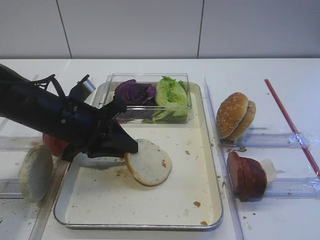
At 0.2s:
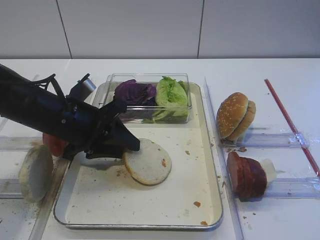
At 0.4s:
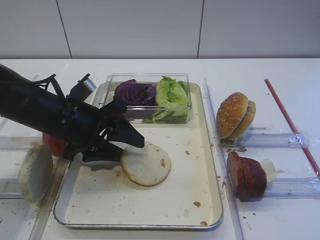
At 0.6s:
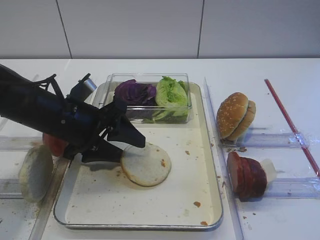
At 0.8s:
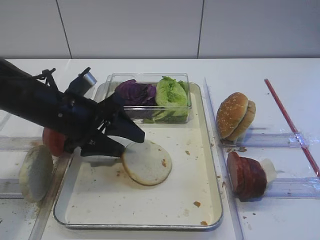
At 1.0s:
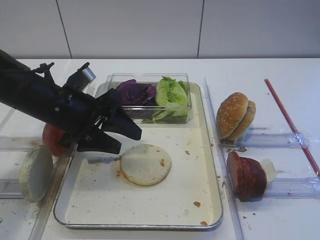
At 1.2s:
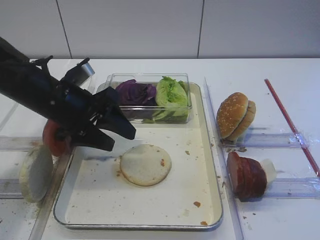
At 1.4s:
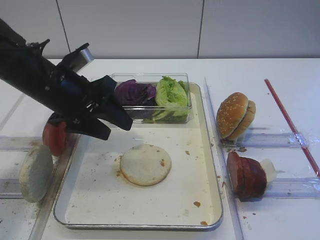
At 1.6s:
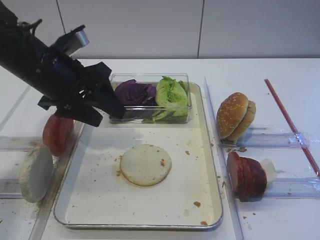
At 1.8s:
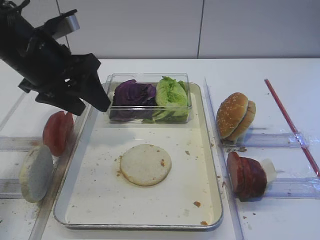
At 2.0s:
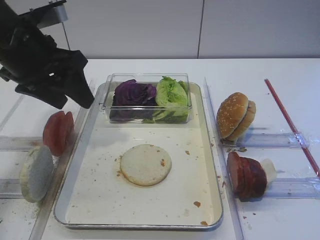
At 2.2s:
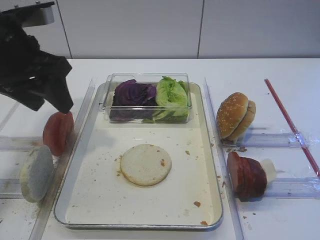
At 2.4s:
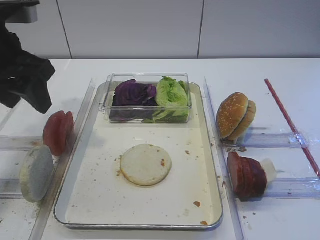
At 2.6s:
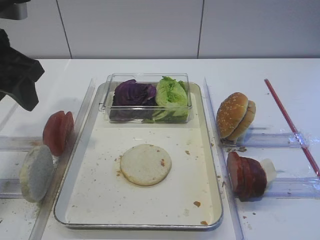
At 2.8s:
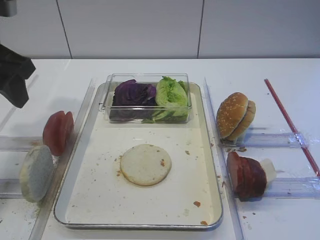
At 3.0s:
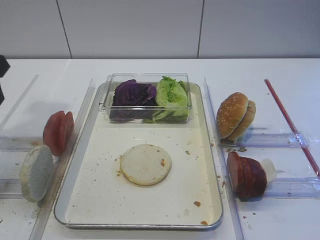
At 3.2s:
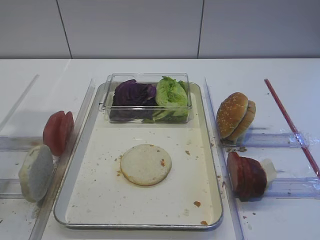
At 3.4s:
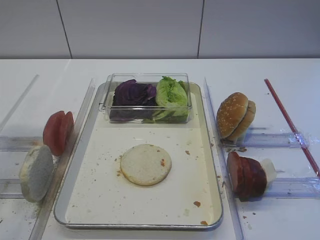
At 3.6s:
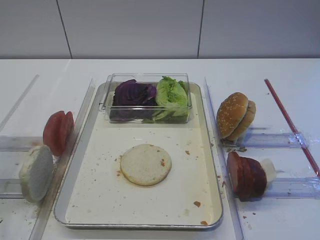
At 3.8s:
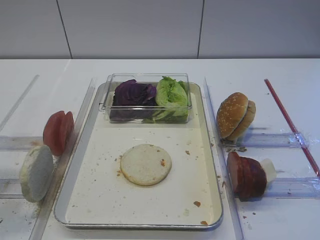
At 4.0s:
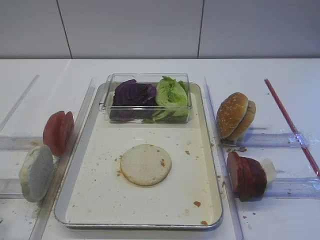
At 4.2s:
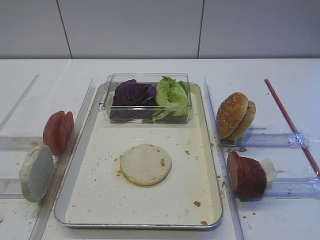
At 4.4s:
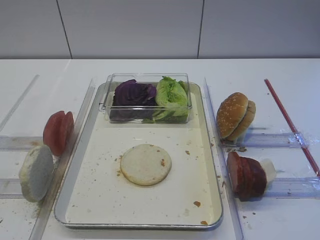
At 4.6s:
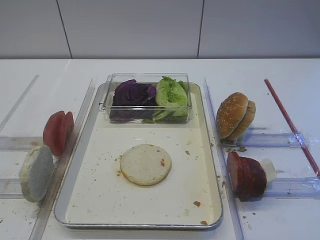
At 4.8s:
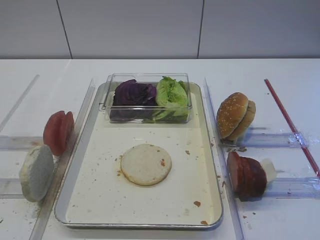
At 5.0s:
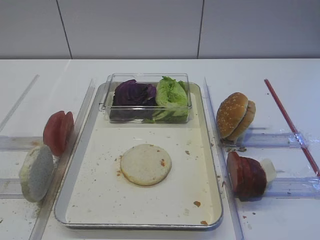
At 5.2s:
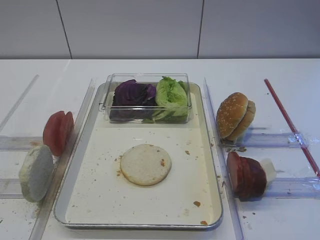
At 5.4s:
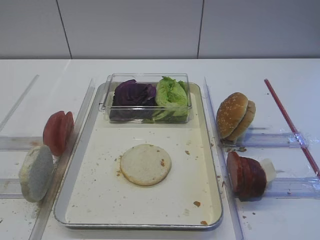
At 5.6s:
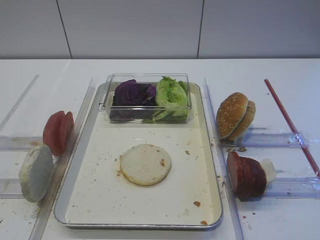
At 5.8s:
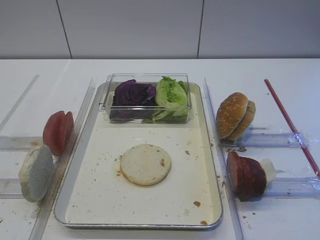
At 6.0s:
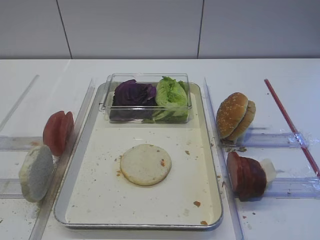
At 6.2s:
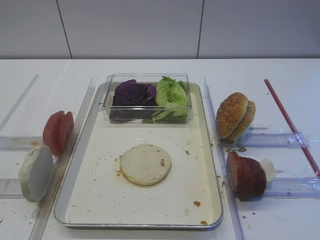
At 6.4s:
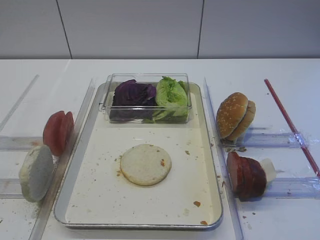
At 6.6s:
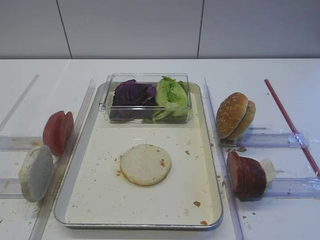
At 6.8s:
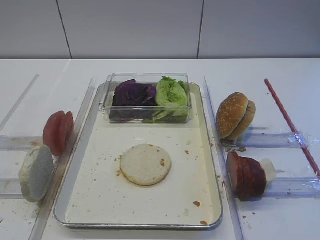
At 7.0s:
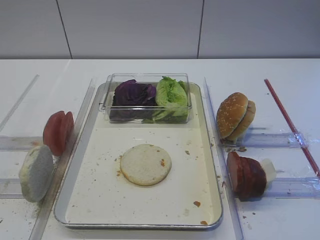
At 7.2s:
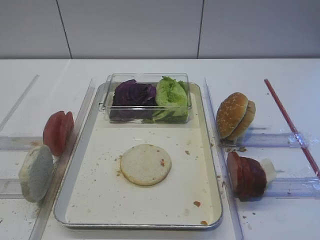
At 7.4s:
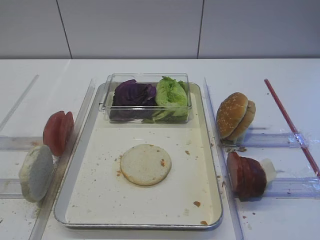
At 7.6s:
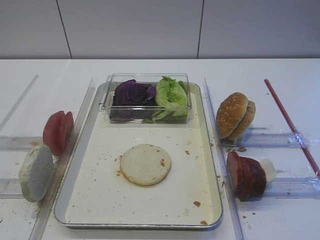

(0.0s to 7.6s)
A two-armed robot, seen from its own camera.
0.0s - 1.6s: The left gripper travels upward by some 10 cm, and opens its fingers.
1.6s - 3.0s: The left gripper moves to the left and upward, some 15 cm.
3.0s - 4.6s: The left gripper is displaced backward by roughly 25 cm.
4.6s - 7.6s: Neither gripper changes place.

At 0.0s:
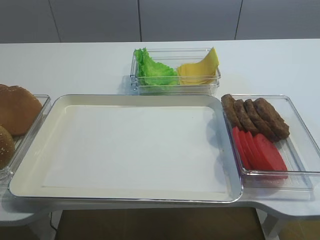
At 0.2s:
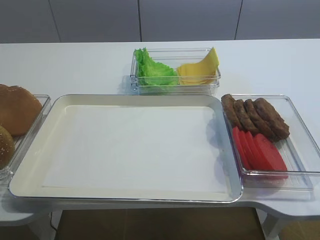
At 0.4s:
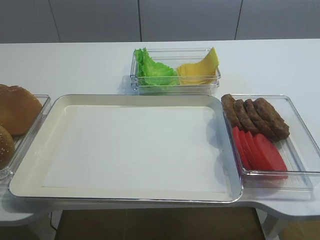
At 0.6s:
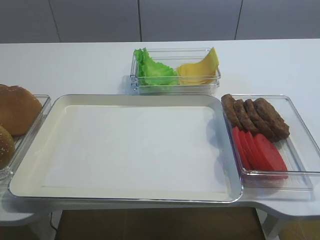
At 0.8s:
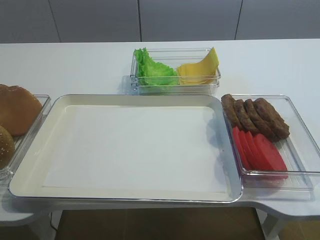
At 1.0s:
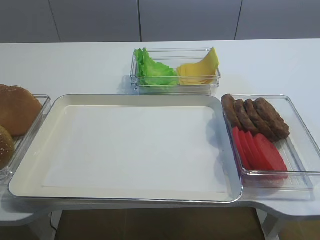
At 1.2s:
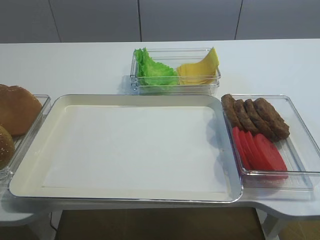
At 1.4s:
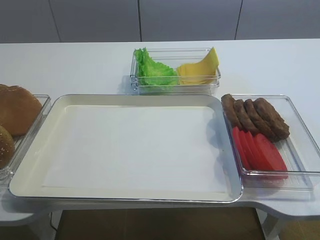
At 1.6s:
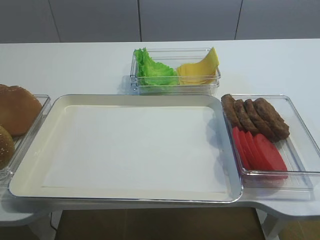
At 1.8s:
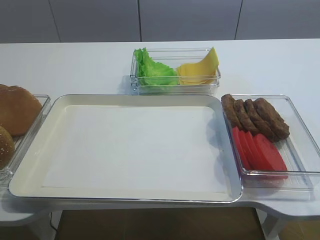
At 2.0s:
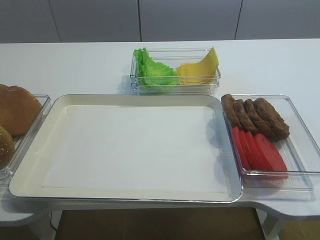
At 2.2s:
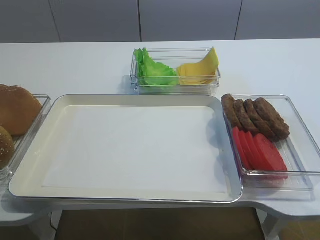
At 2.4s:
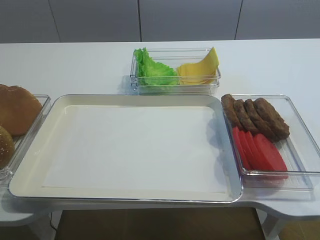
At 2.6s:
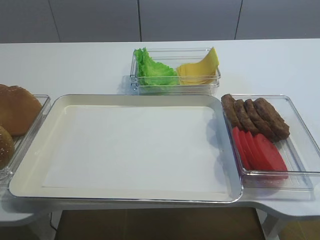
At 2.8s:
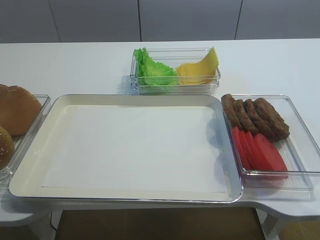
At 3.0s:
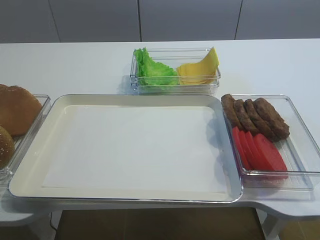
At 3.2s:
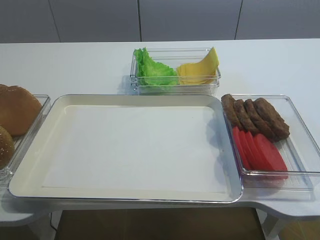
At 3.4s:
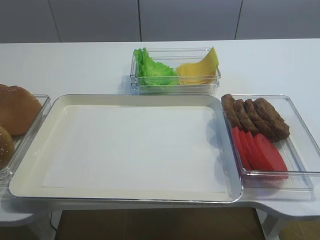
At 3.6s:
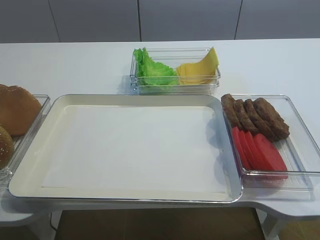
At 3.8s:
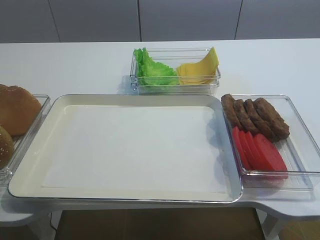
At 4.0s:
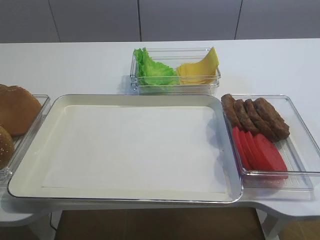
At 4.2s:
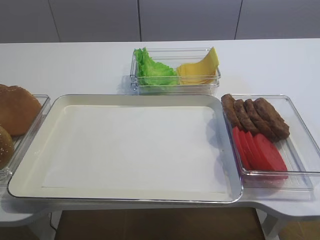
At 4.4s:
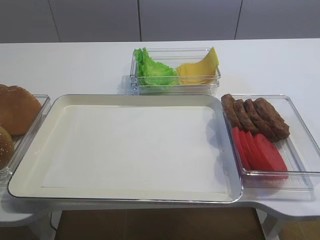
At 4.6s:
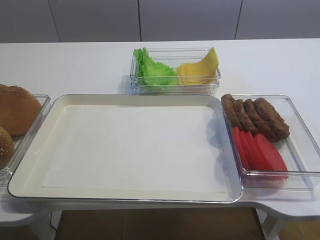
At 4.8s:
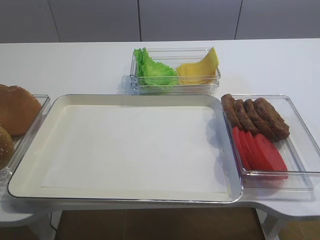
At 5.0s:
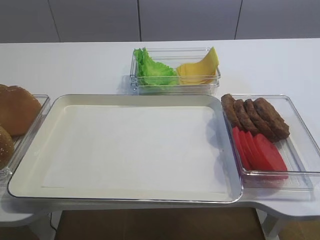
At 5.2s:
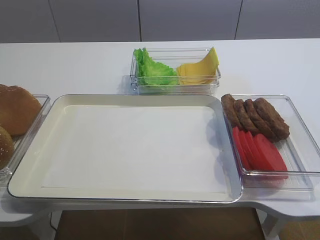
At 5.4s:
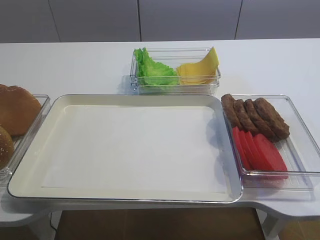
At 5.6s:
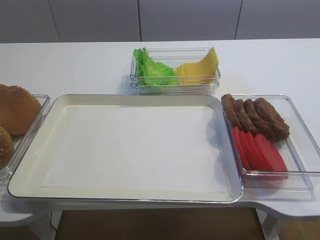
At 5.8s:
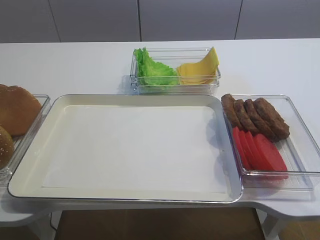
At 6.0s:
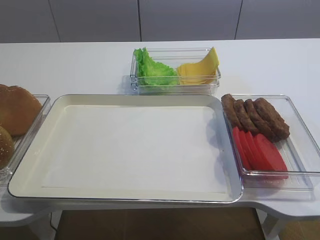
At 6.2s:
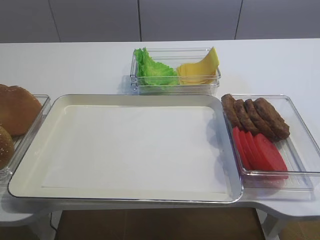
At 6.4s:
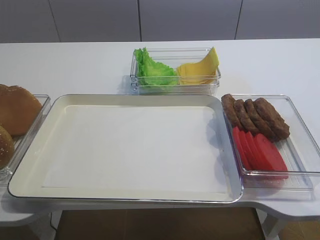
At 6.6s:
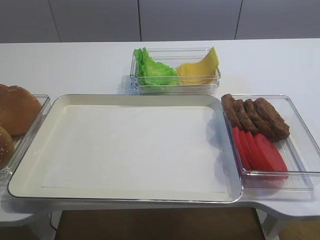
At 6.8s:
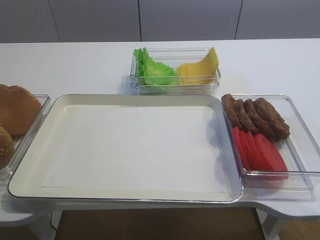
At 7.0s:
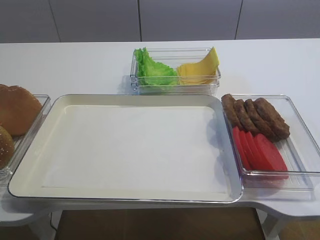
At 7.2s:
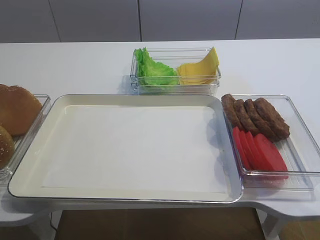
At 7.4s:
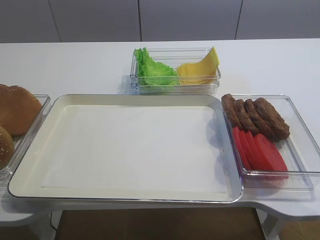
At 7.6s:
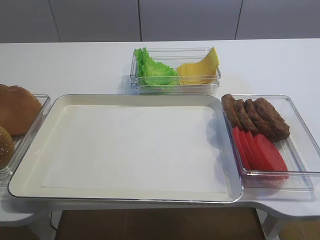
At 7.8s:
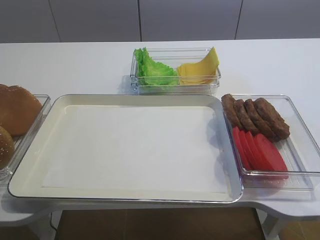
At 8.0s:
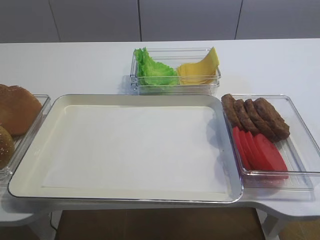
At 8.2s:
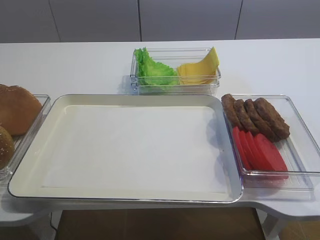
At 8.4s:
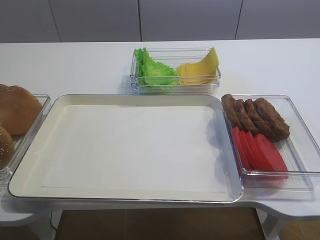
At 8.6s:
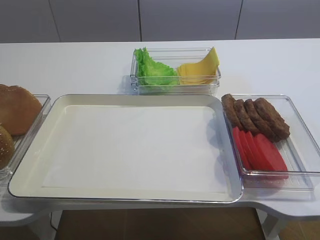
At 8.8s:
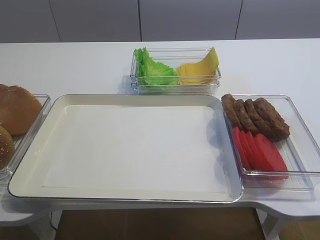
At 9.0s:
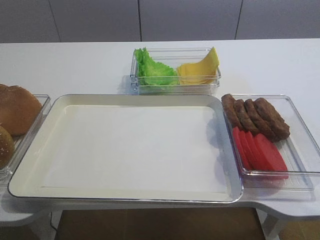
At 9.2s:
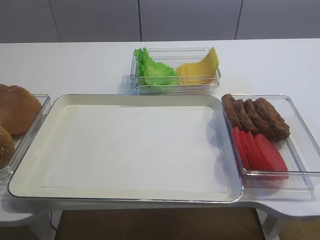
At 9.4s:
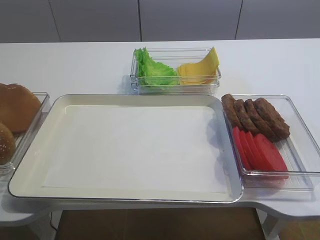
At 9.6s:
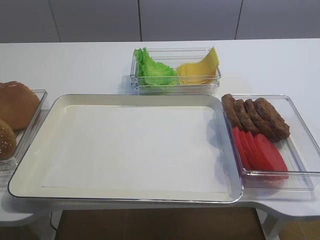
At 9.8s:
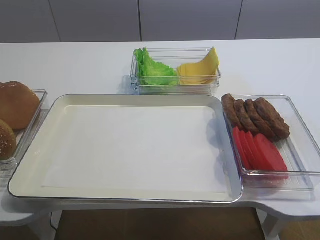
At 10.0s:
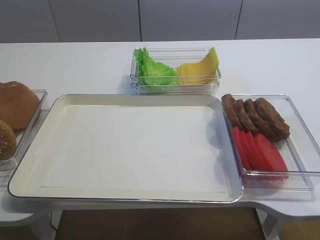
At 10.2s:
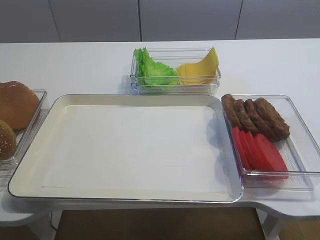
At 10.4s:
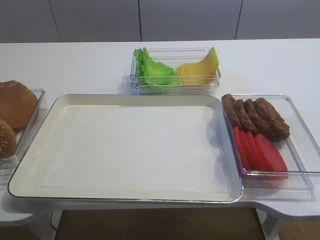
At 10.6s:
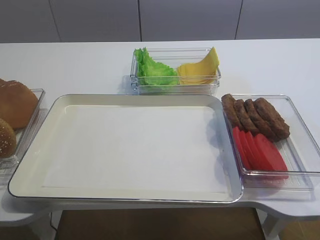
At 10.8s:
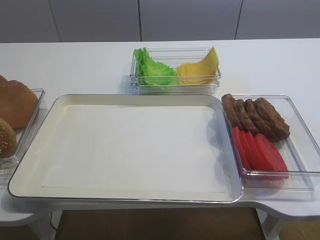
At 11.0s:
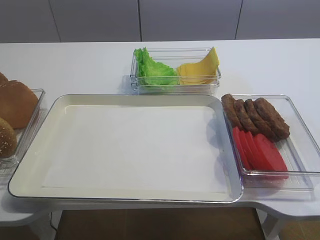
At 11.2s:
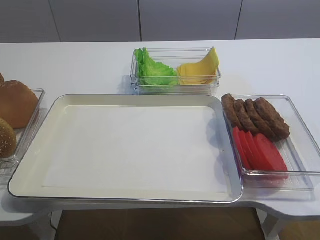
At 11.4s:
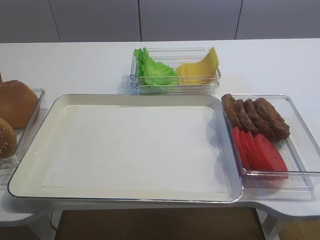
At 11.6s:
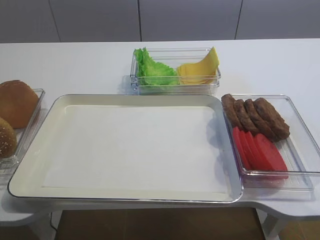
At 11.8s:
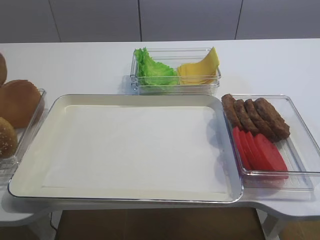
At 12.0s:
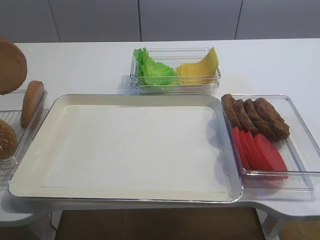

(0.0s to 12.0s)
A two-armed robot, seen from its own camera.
9.0s - 10.4s: The left gripper closes up.
10.4s - 12.0s: The left gripper is displaced upward and to the right by approximately 10 cm.

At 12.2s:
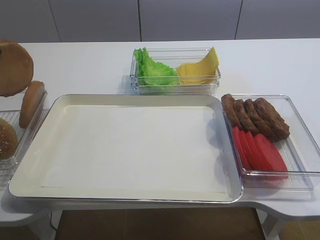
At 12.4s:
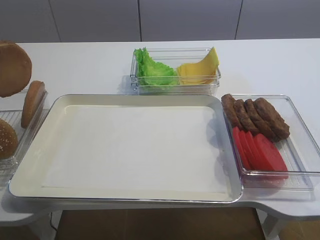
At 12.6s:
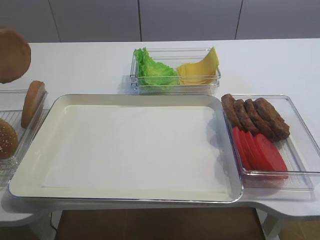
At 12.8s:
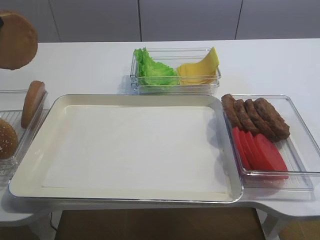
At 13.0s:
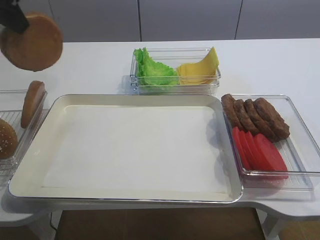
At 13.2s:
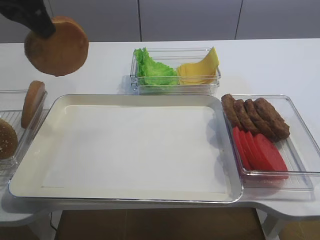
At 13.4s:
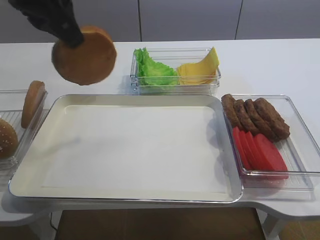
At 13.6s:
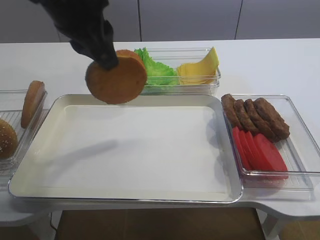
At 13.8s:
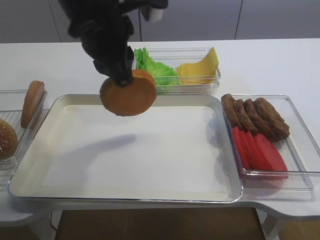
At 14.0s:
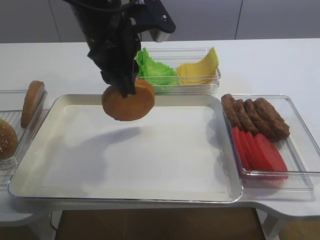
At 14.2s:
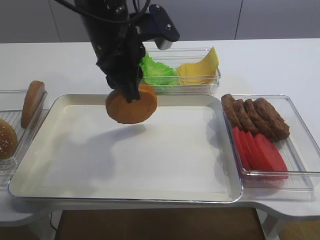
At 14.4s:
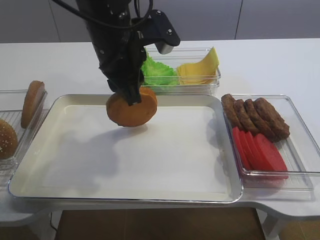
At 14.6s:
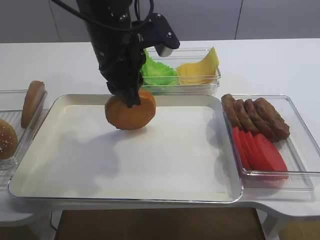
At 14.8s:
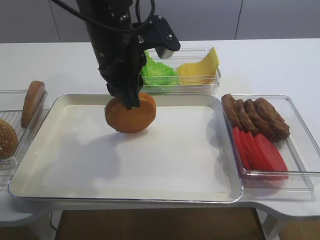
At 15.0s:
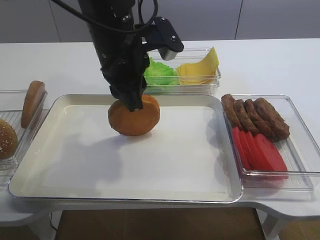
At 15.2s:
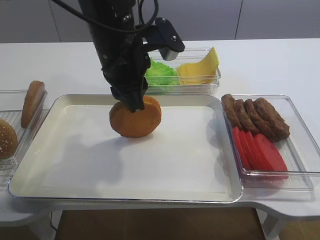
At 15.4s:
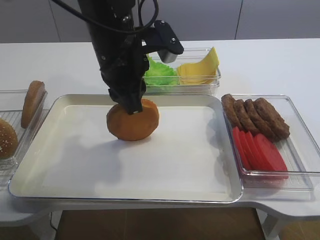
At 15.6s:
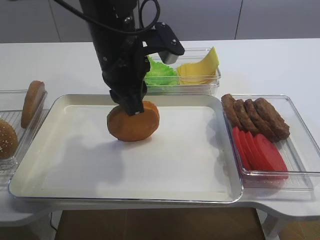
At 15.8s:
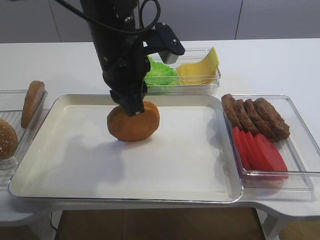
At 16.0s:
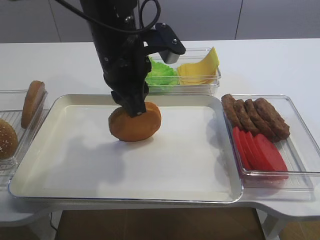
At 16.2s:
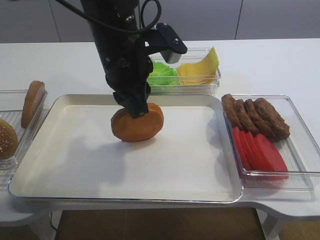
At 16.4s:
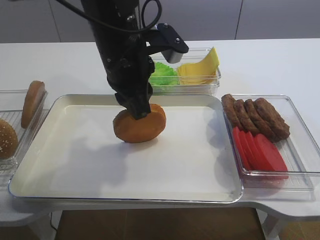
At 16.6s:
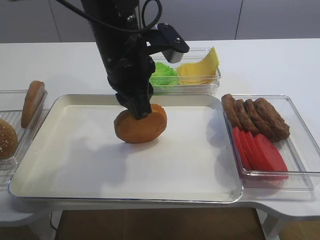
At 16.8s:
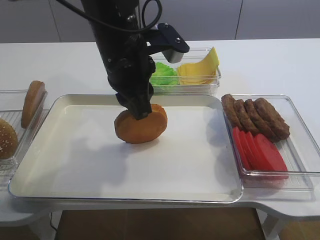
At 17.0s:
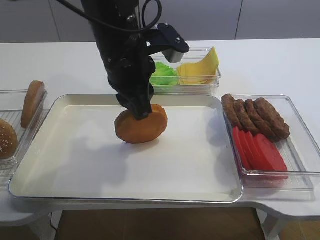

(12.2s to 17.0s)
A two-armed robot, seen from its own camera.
12.2s - 13.8s: The left gripper travels to the right by about 20 cm.
13.8s - 15.4s: The left gripper moves downward, some 5 cm.
15.4s - 17.0s: The grippers stay close to where they were, moving slightly.
